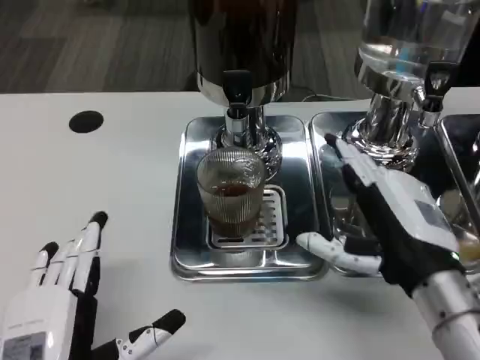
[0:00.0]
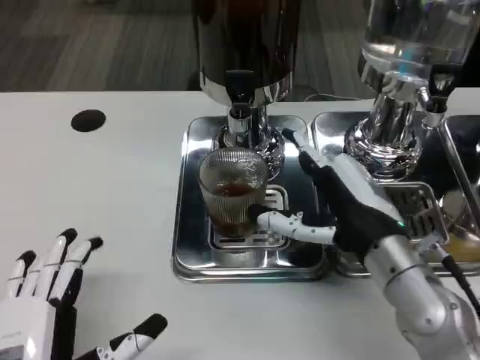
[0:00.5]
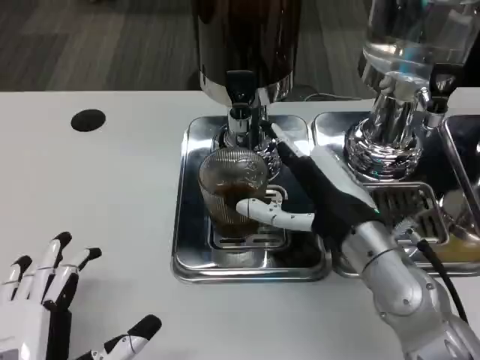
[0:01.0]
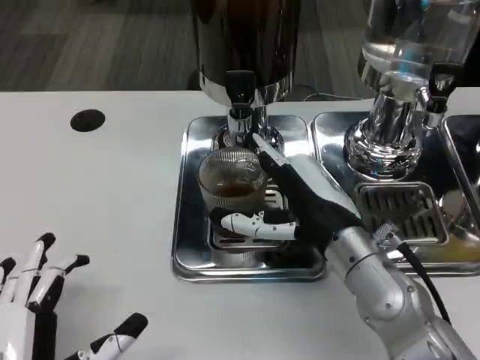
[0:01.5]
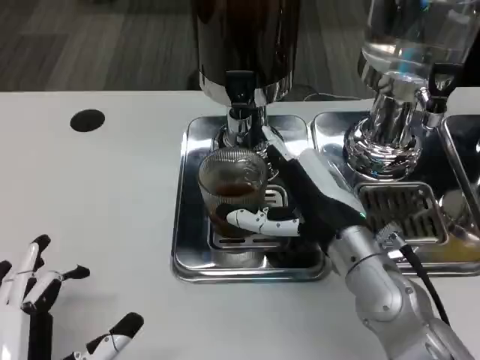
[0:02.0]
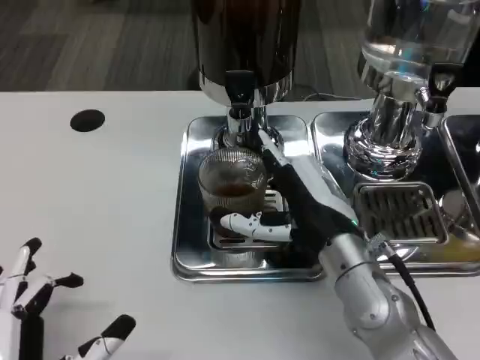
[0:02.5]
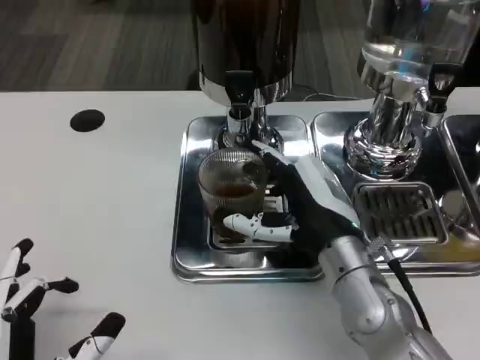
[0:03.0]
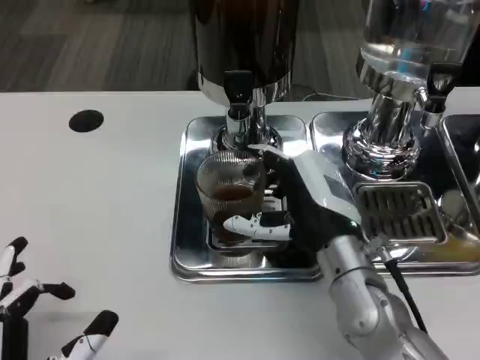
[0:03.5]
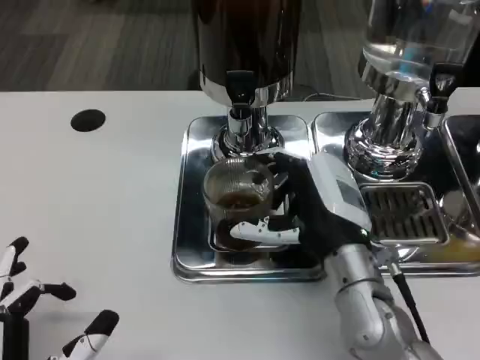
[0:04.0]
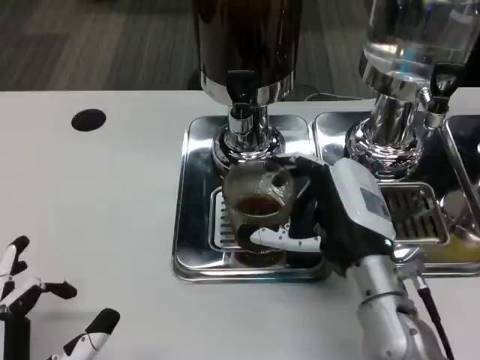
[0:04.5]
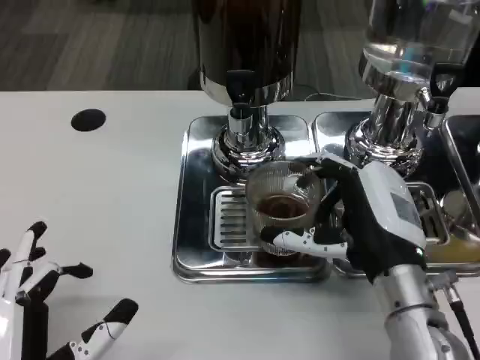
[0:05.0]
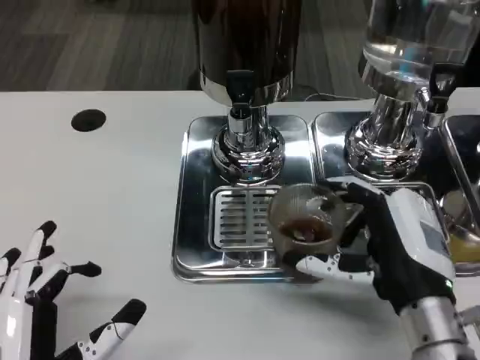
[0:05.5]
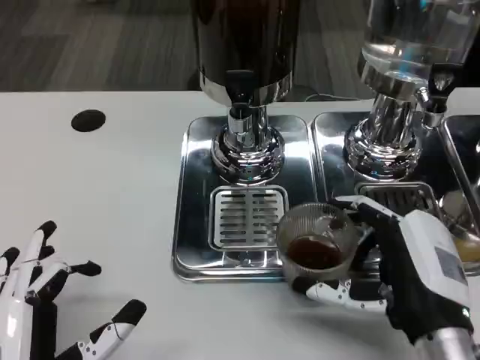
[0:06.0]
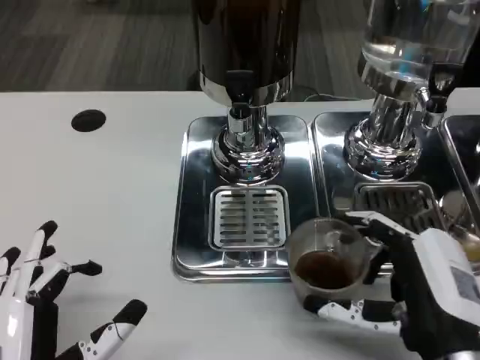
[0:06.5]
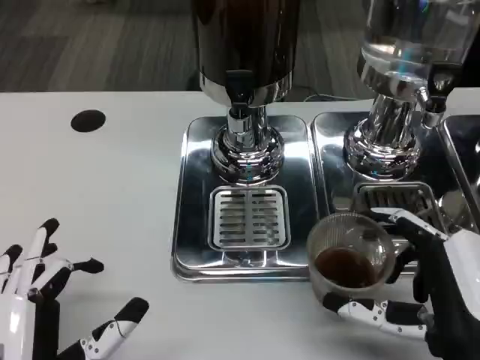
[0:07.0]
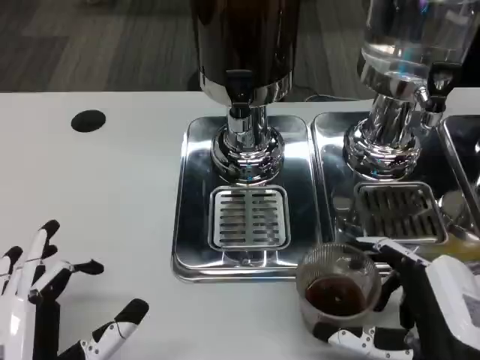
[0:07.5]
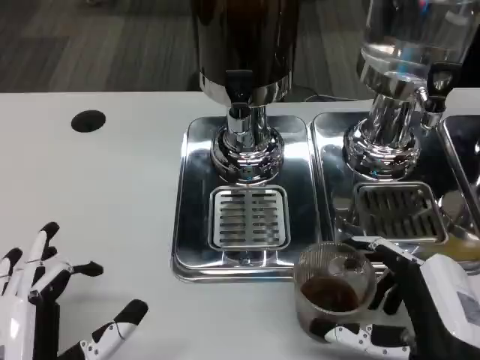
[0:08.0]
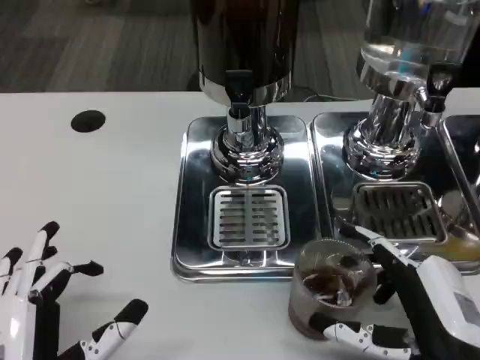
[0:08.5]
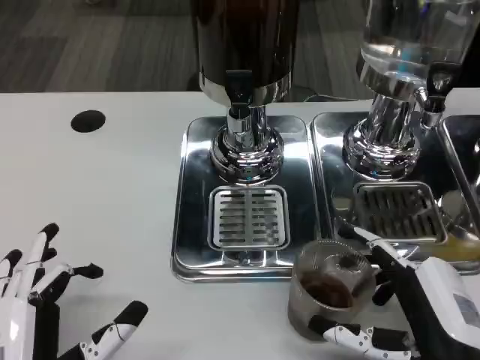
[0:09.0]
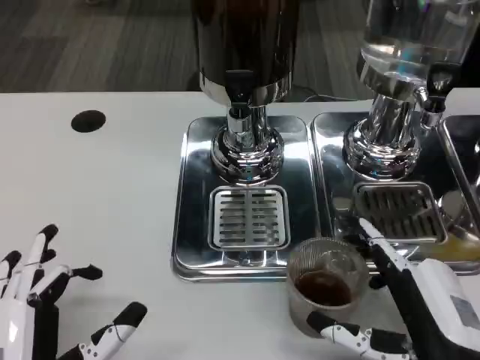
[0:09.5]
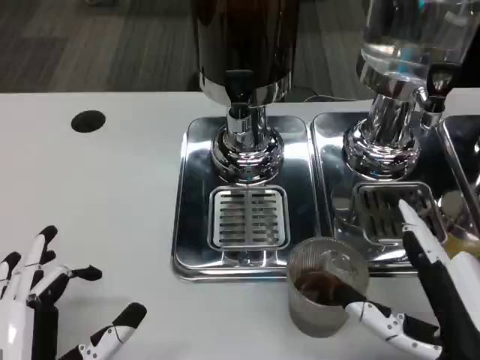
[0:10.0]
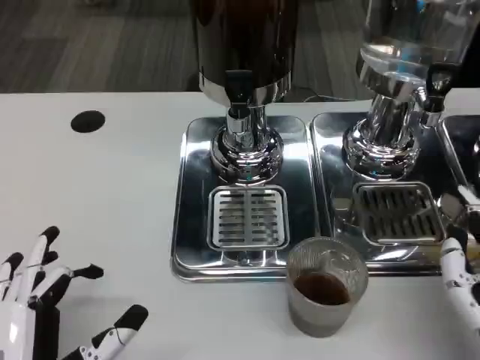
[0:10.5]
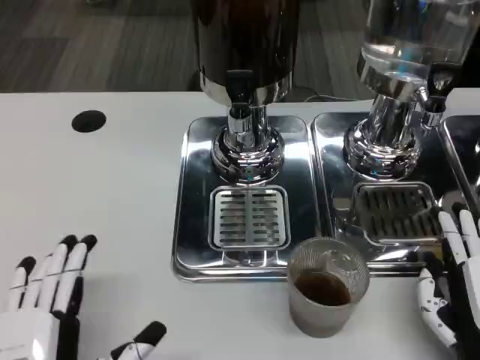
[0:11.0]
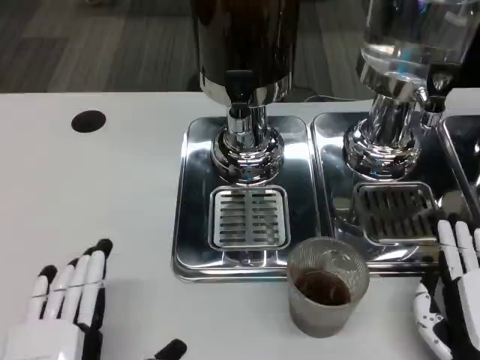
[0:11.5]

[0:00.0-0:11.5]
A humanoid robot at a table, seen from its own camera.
Task of the whole recording: Grasp the cup under the faucet to collect the drink, then remove the cup.
0:00.0 to 0:02.0: The right hand is displaced to the left and forward by approximately 10 cm.
0:02.0 to 0:04.0: There are only small adjustments of the hands.
0:04.0 to 0:06.0: The right hand moves backward and to the right, some 10 cm.
0:06.0 to 0:09.5: The hands make only small movements.
0:09.5 to 0:11.5: The right hand moves approximately 5 cm.

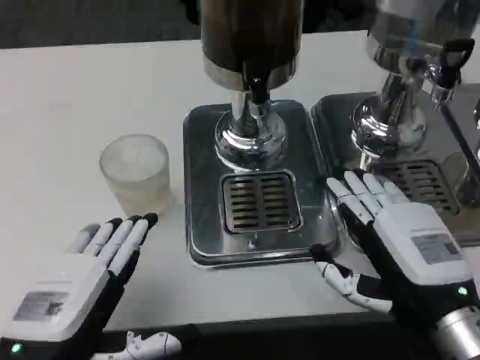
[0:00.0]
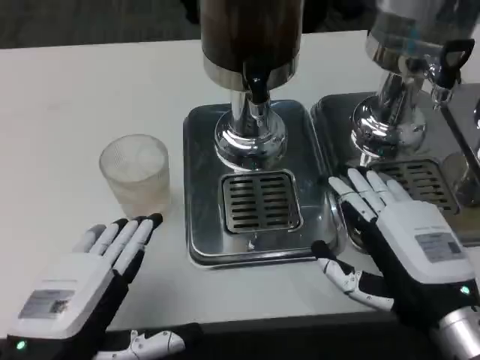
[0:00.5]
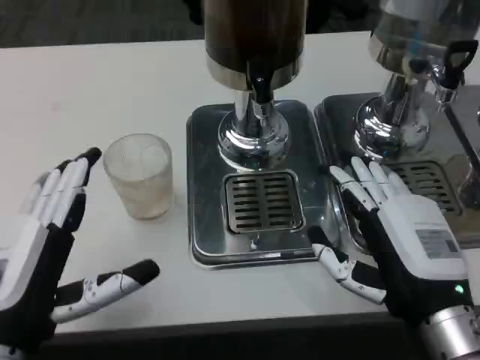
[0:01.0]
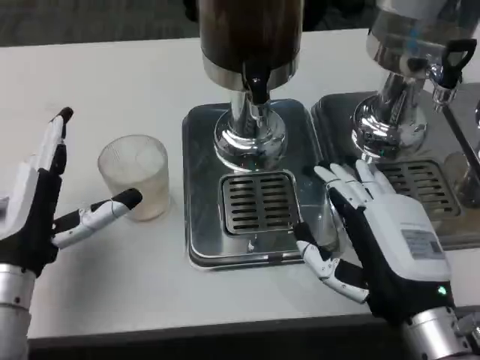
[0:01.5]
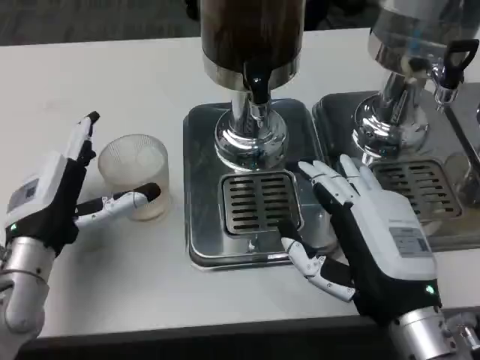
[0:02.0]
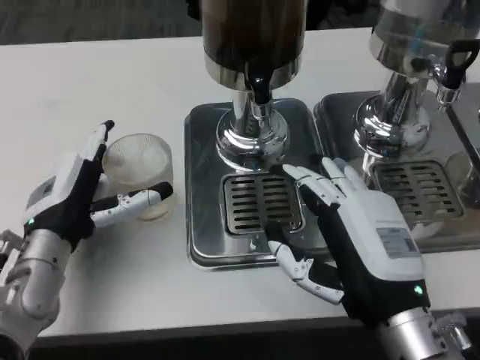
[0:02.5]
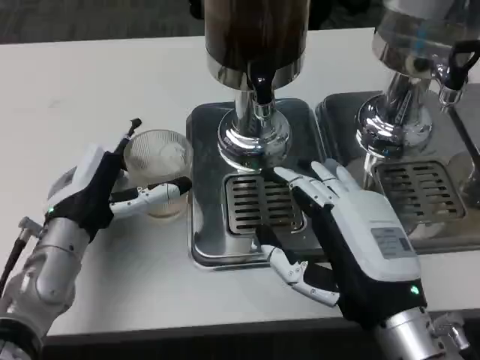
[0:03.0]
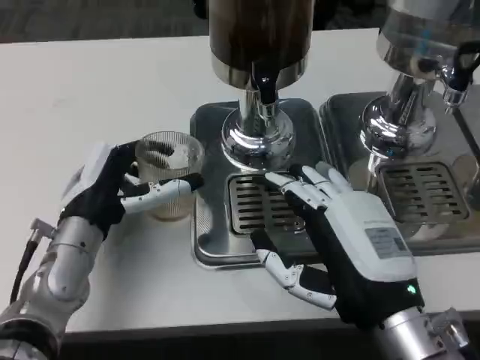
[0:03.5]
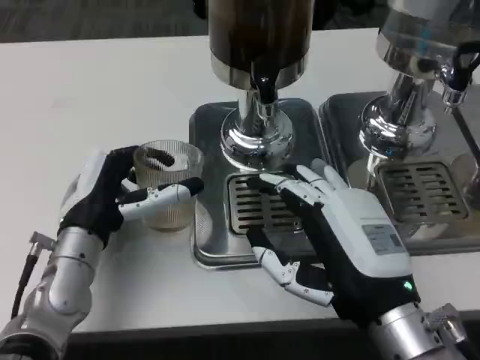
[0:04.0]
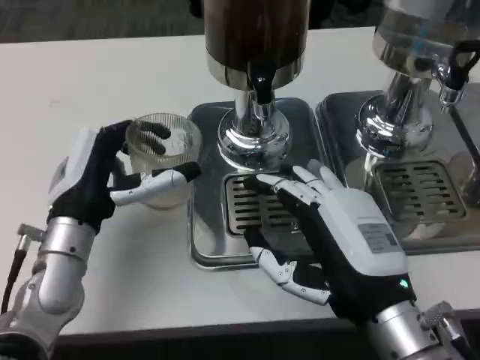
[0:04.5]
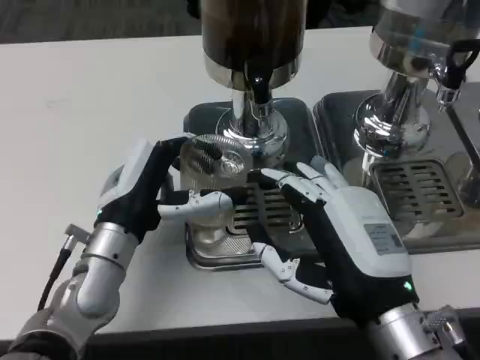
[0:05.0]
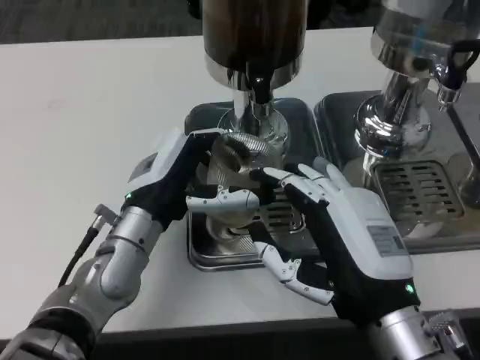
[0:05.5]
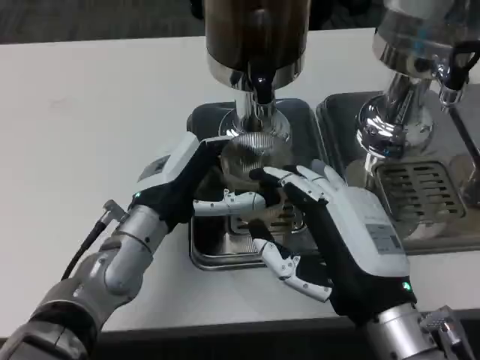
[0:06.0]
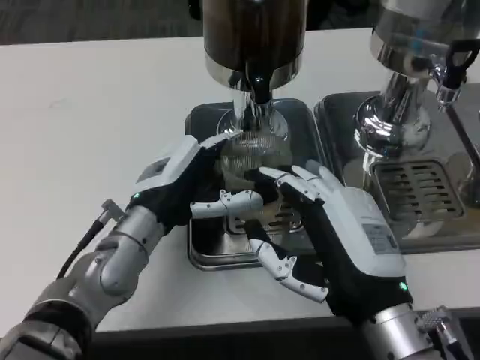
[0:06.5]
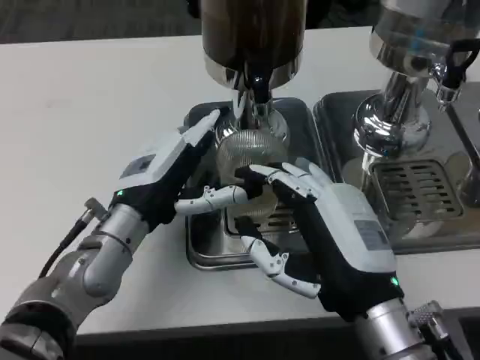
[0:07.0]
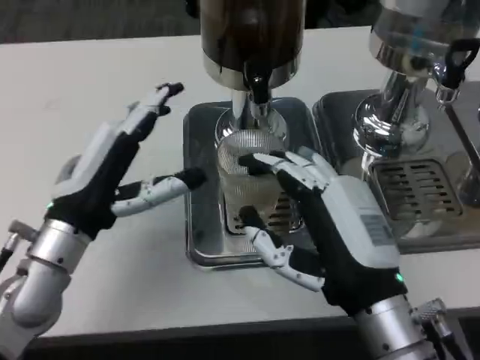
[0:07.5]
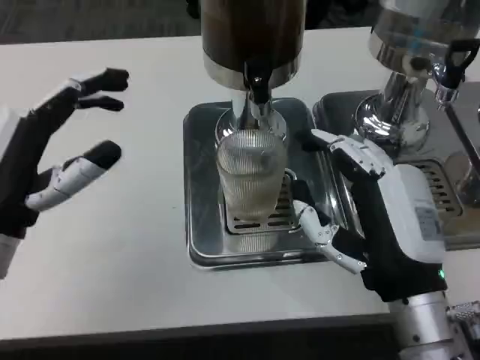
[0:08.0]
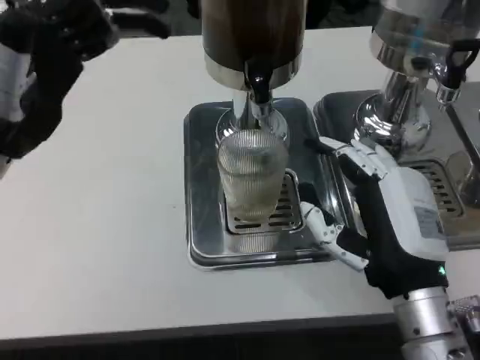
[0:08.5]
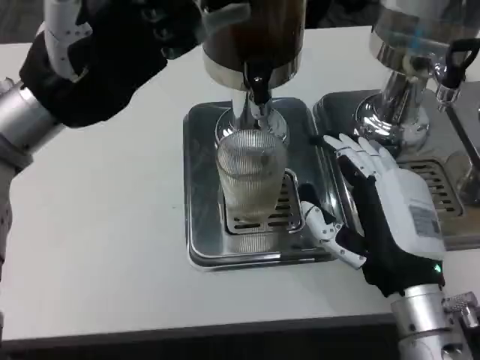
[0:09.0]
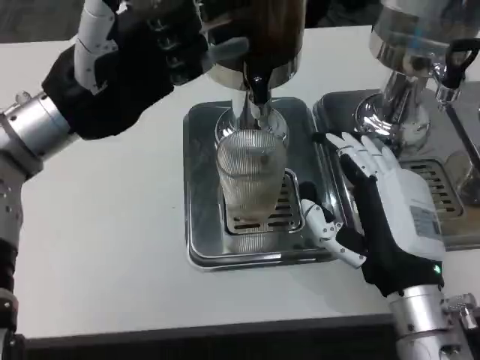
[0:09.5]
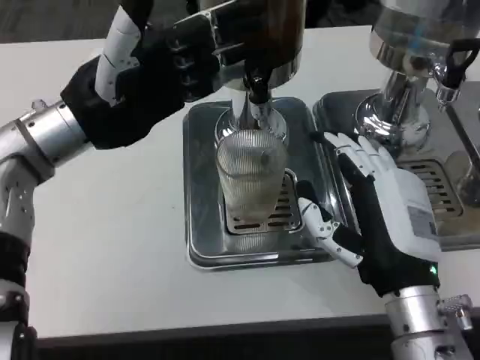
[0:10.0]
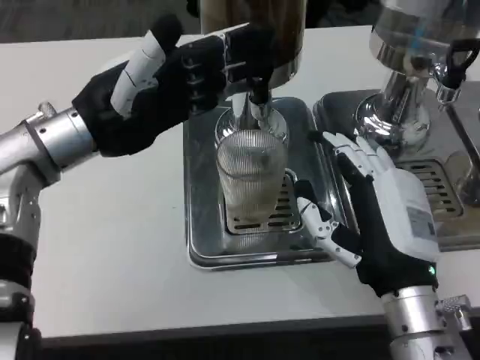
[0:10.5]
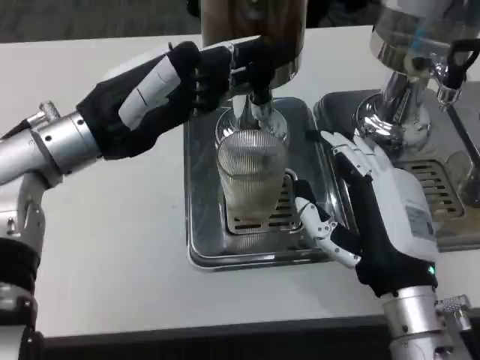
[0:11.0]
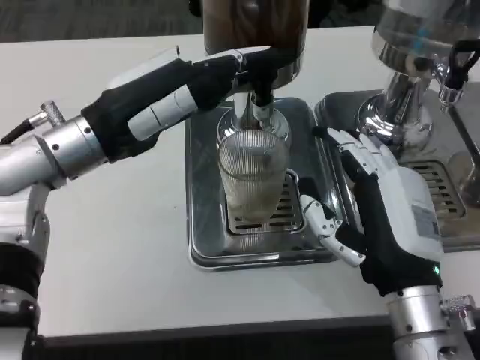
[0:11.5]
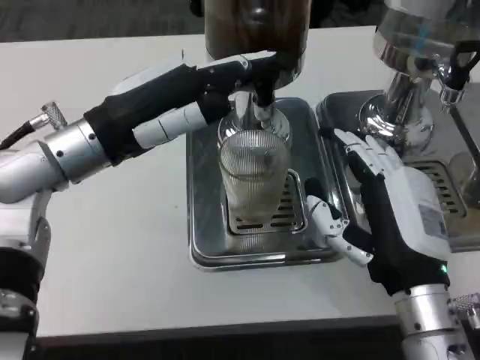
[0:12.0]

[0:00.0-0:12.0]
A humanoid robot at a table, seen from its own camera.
Task of the whole recording: Grasp the cup under the faucet to collect the drink, then remove the cup.
0:00.0 to 0:02.0: The left hand moves forward, some 15 cm.
0:04.0 to 0:06.0: The left hand moves to the right, approximately 5 cm.
0:06.0 to 0:08.0: The left hand goes about 15 cm to the left and backward.
0:08.0 to 0:10.0: The left hand goes approximately 15 cm forward and upward.

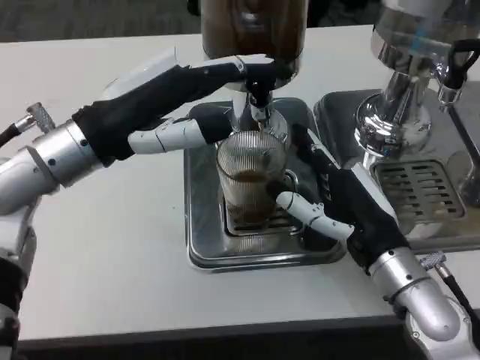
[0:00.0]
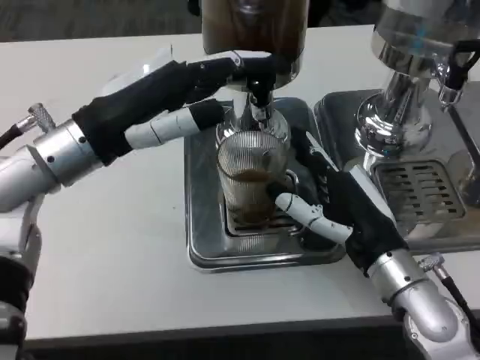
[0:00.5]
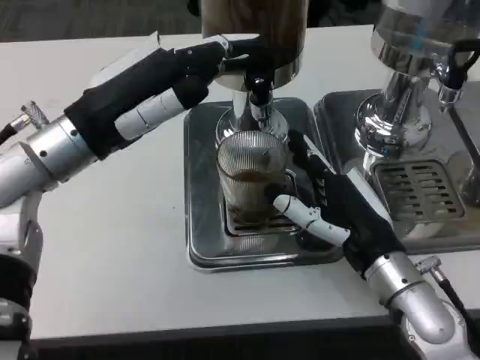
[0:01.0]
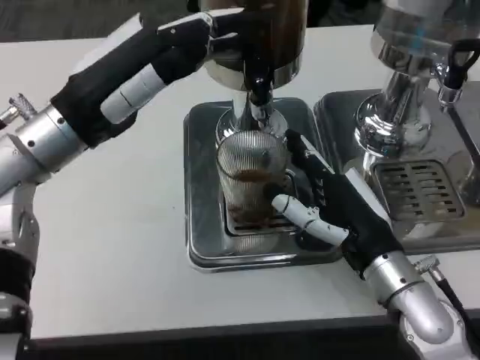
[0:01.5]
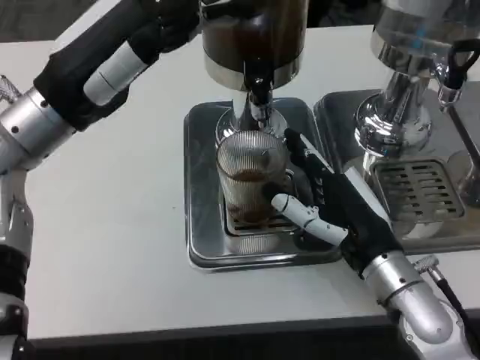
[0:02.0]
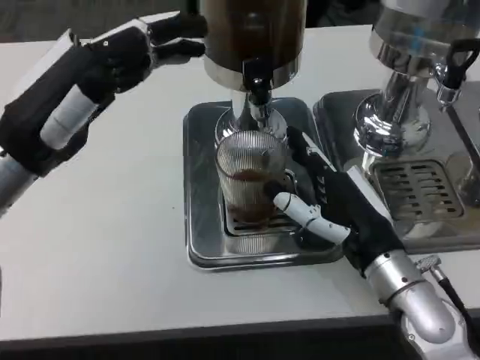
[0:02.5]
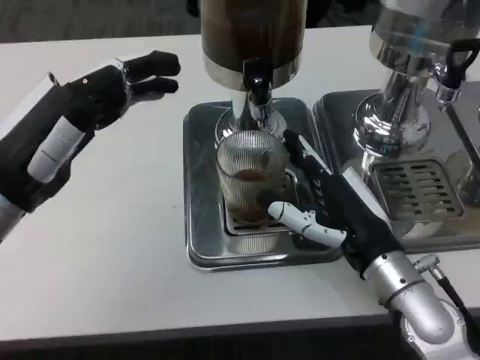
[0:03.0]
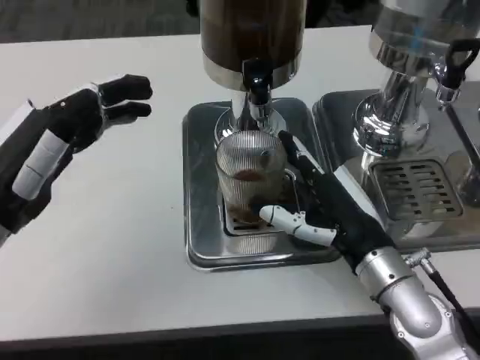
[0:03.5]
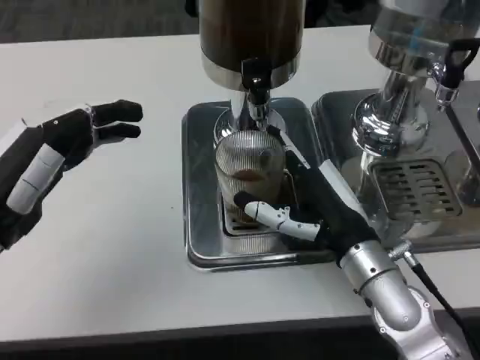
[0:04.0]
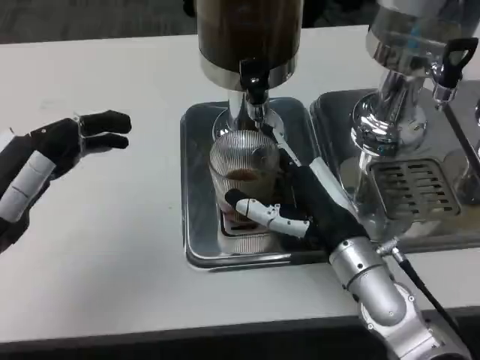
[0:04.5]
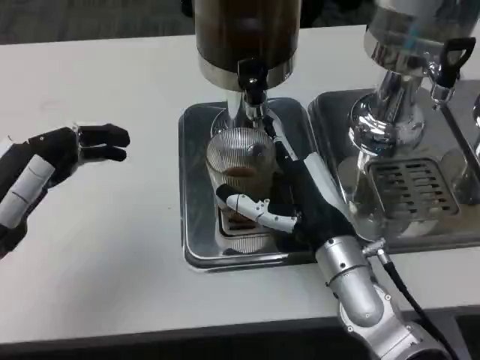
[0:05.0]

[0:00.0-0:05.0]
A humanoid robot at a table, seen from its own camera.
Task of the whole recording: Grasp the cup under the faucet to collect the drink, then remove the cup.
0:00.0 to 0:02.5: The left hand shifts by roughly 5 cm.
0:02.5 to 0:05.0: The right hand is displaced to the left by about 5 cm. Meanwhile the left hand moves backward and downward, some 10 cm.
